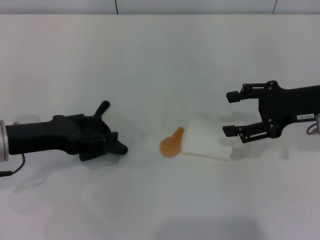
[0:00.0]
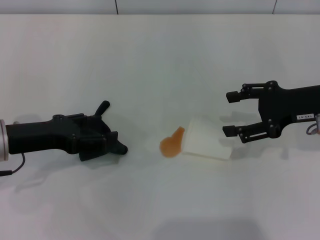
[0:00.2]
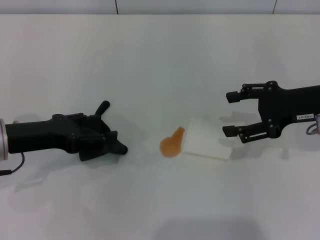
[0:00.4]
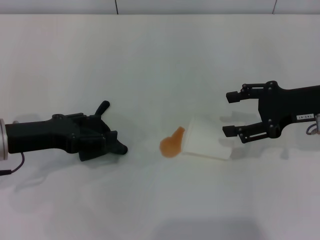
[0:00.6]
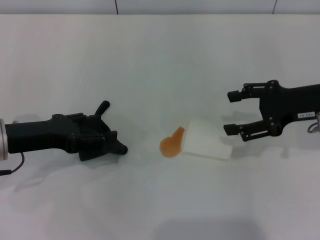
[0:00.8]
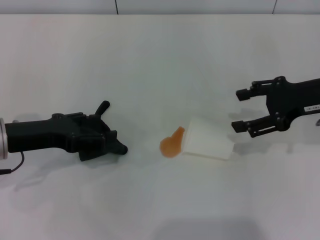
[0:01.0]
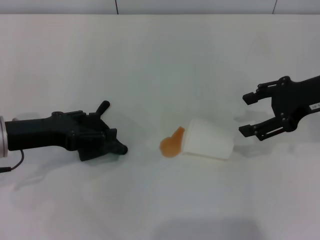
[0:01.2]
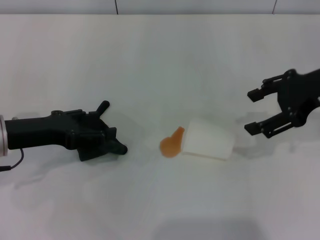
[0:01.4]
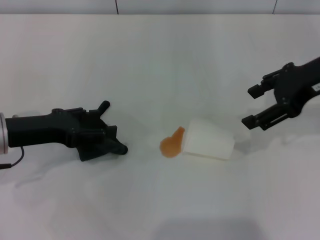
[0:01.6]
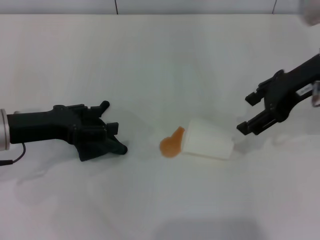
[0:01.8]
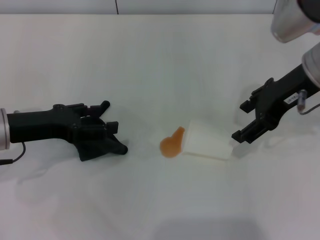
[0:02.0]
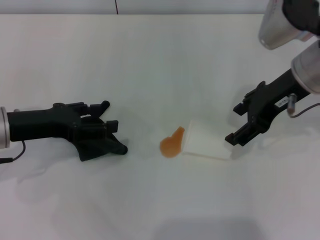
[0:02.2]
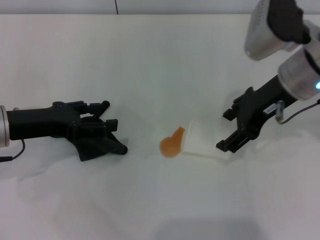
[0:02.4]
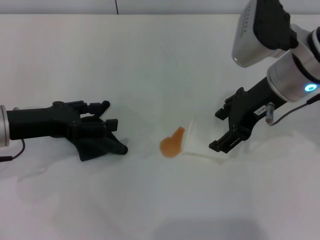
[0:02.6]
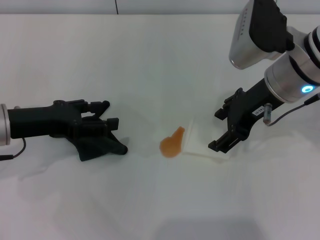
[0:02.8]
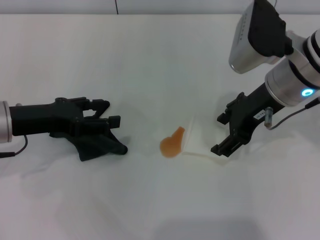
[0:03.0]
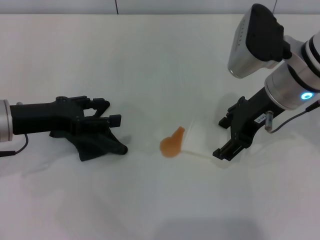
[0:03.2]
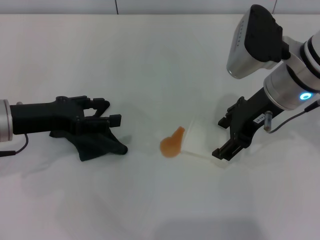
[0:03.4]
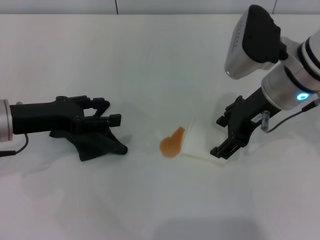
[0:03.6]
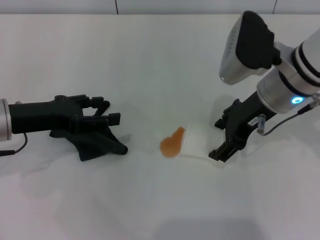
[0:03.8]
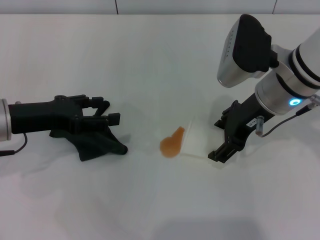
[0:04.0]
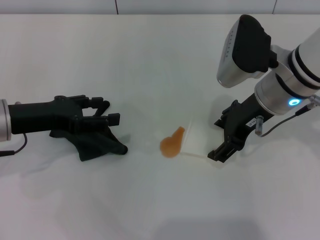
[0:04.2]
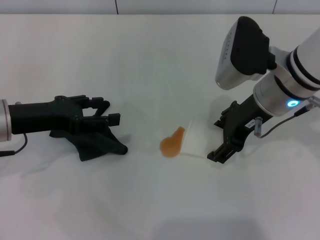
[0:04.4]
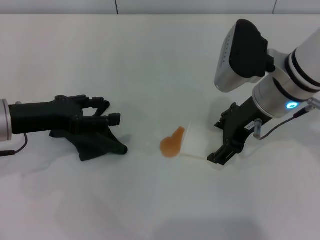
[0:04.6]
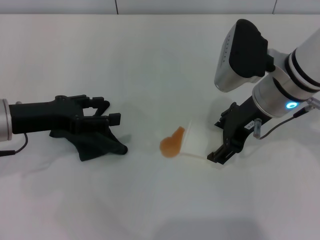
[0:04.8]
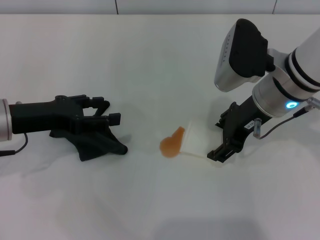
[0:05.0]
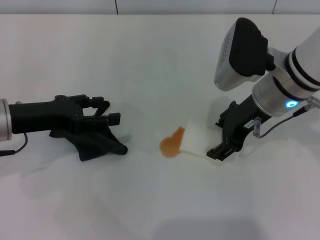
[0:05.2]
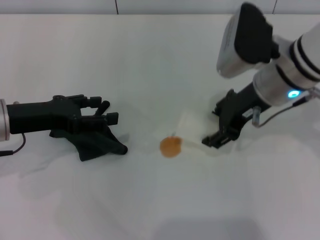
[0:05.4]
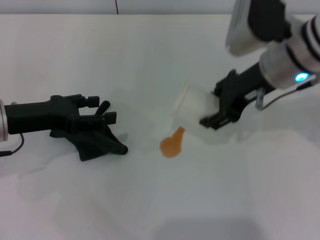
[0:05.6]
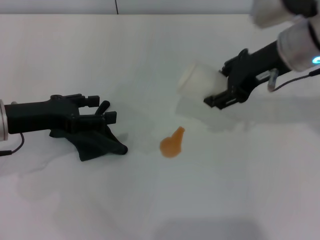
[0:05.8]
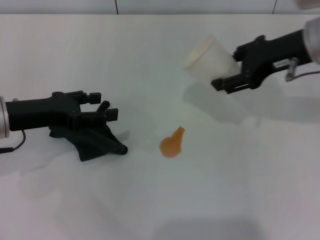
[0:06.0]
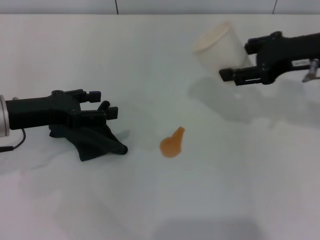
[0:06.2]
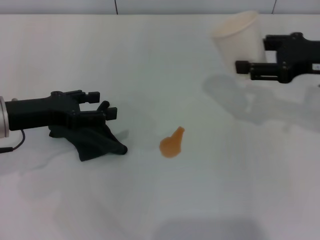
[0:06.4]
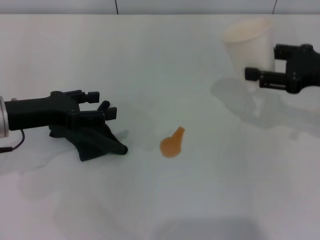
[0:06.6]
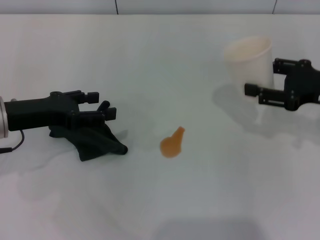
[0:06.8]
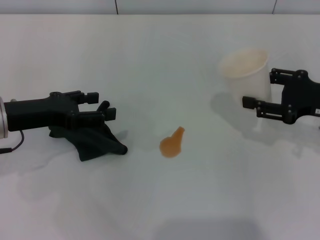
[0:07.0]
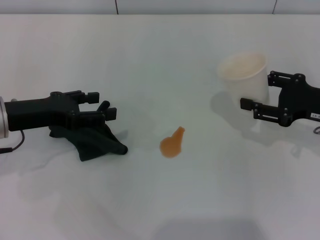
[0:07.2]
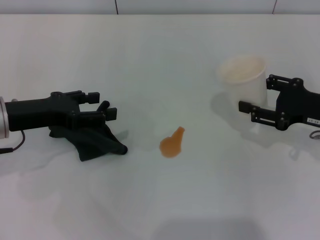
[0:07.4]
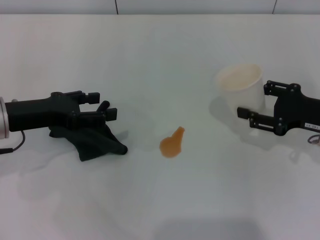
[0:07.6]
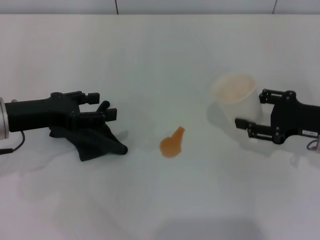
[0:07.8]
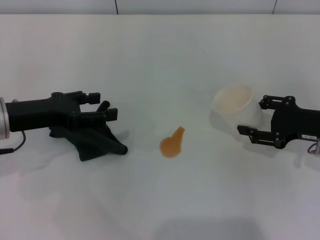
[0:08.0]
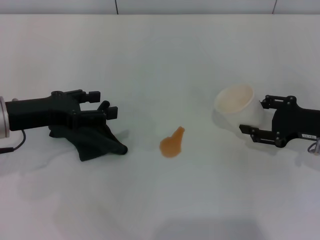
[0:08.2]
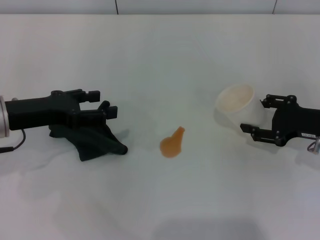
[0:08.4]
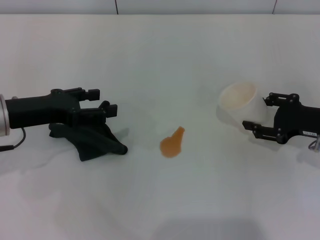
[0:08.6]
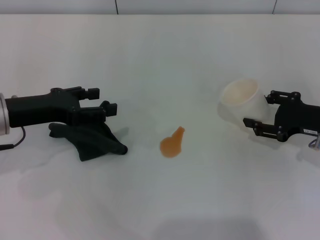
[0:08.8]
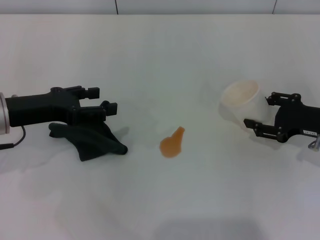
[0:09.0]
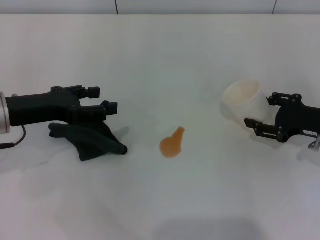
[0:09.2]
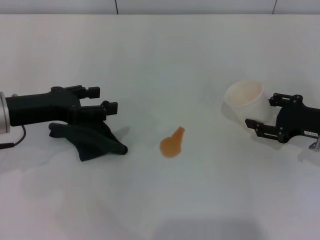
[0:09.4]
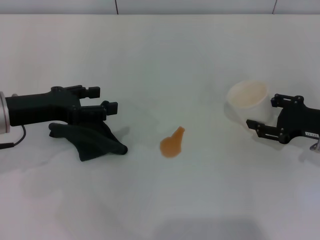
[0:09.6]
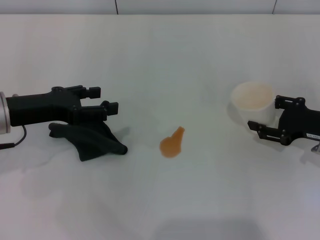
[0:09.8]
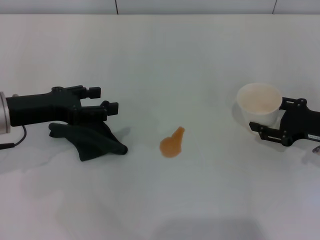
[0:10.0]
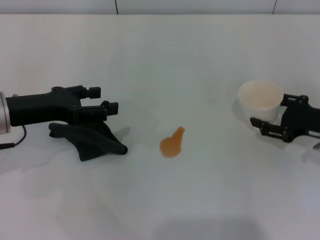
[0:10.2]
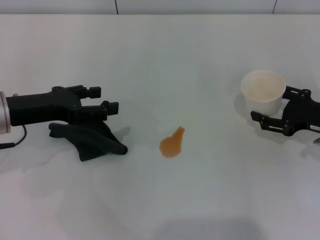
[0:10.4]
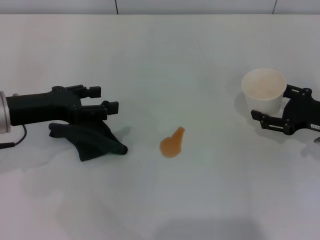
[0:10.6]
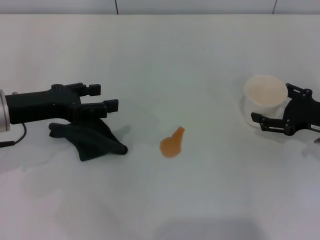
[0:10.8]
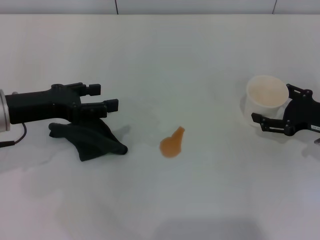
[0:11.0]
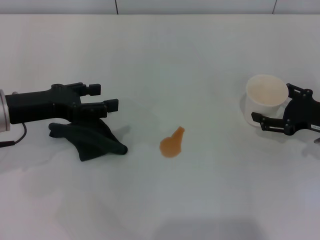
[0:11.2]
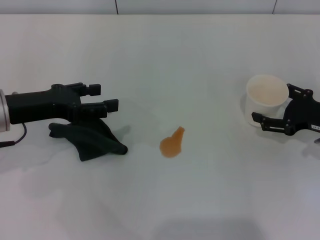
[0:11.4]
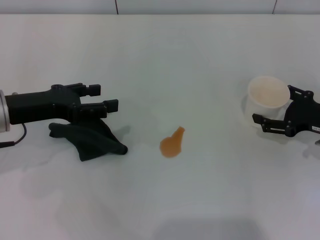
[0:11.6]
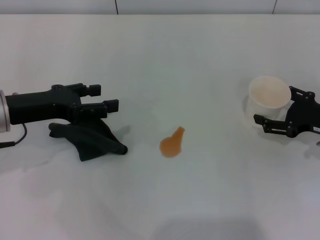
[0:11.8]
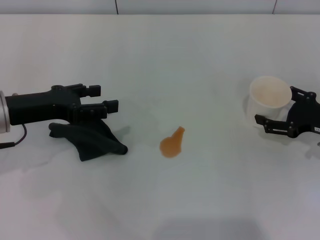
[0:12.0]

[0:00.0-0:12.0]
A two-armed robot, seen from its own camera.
Step, 0:00.0 to 0:04.8: Grasp the paper cup with the right gripper.
0:00.0 to 0:01.6: The right gripper shifts roughly 10 cm upward.
0:01.6 to 0:03.0: The right gripper moves to the left, about 10 cm.
0:03.0 to 0:04.4: The grippers make only small movements.
0:04.4 to 0:06.0: The right gripper goes roughly 10 cm to the right and upward, and closes up.
0:06.0 to 0:07.6: The right gripper travels downward, to the right and backward by some 15 cm.
0:07.6 to 0:10.4: The grippers move only a little.
0:10.4 to 0:12.0: The right gripper opens its fingers.

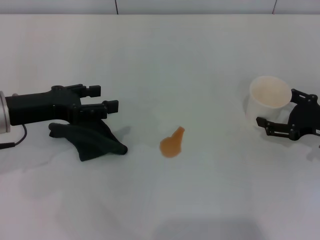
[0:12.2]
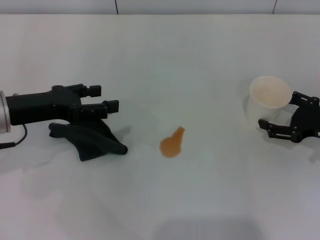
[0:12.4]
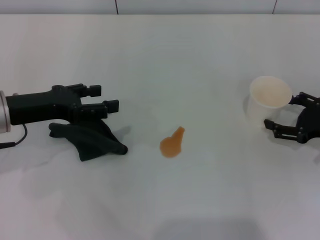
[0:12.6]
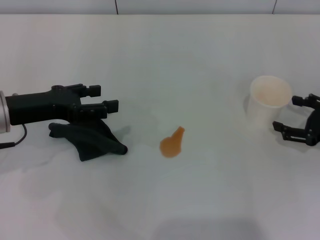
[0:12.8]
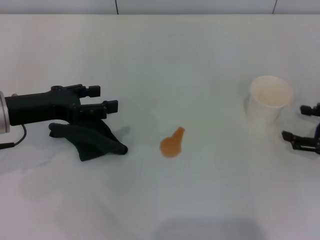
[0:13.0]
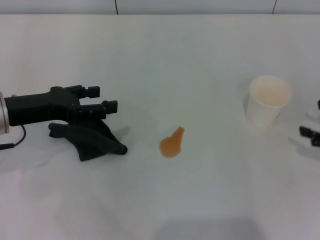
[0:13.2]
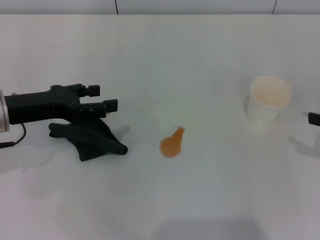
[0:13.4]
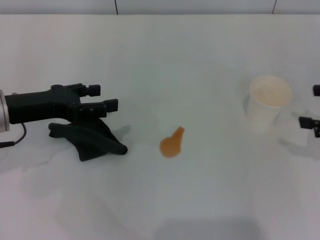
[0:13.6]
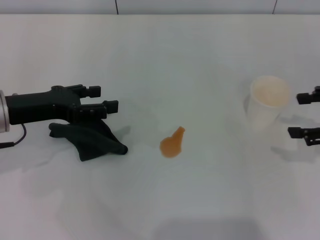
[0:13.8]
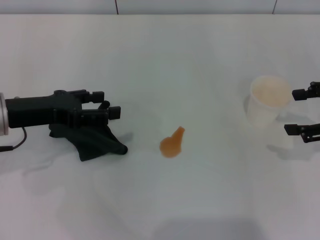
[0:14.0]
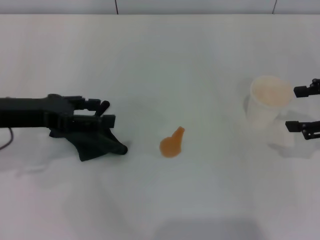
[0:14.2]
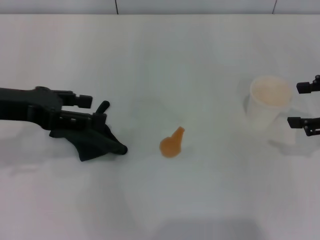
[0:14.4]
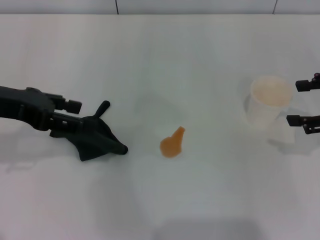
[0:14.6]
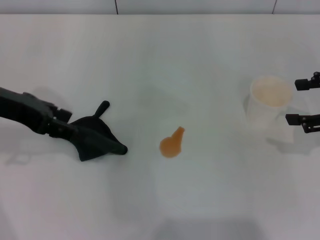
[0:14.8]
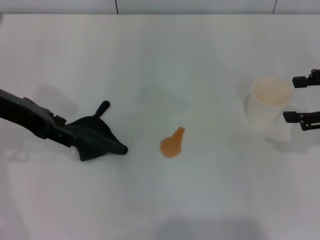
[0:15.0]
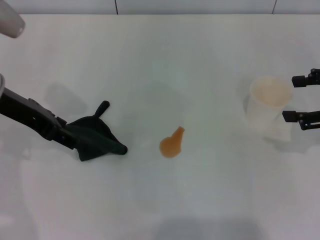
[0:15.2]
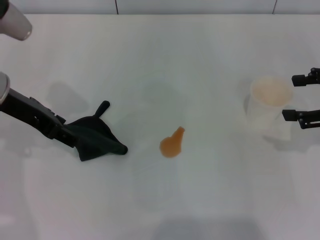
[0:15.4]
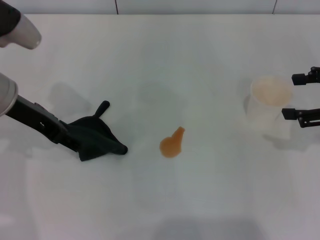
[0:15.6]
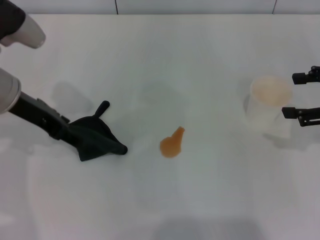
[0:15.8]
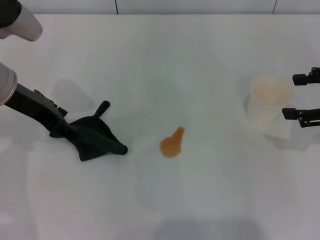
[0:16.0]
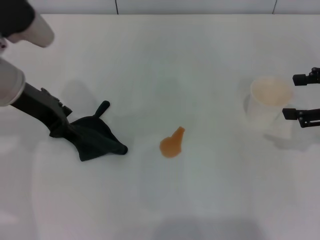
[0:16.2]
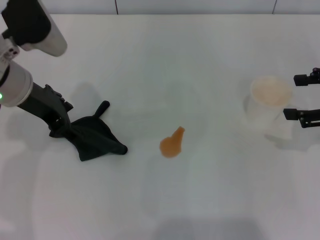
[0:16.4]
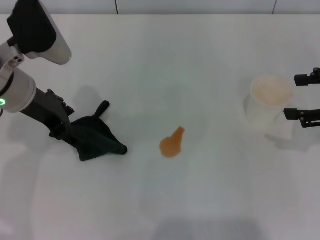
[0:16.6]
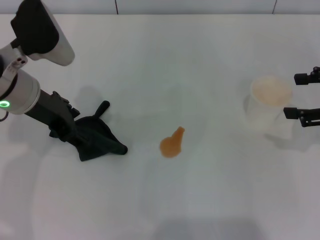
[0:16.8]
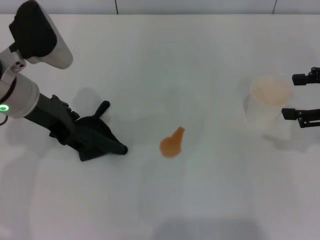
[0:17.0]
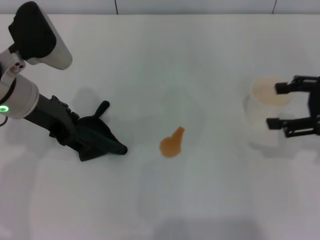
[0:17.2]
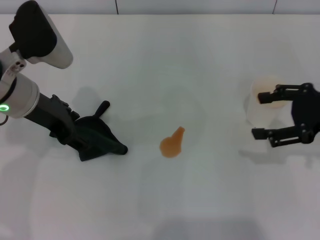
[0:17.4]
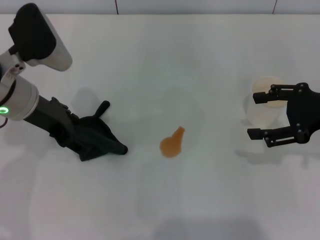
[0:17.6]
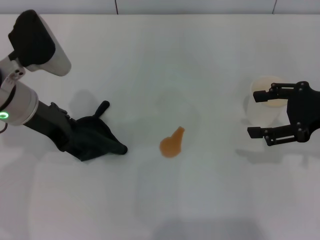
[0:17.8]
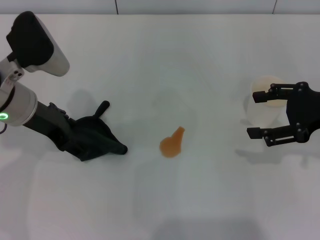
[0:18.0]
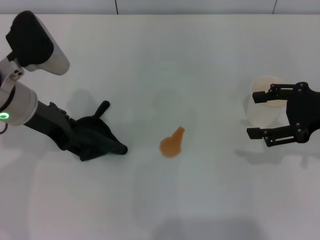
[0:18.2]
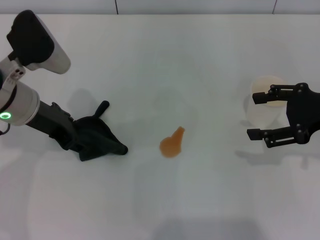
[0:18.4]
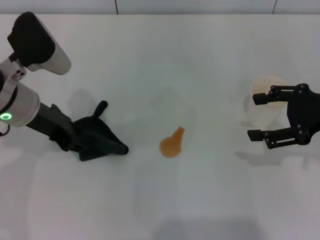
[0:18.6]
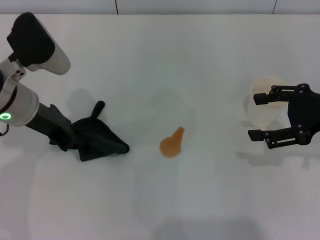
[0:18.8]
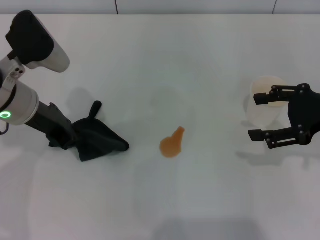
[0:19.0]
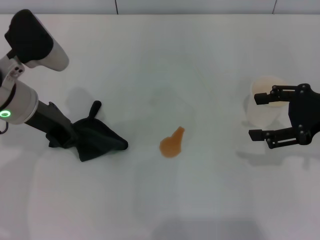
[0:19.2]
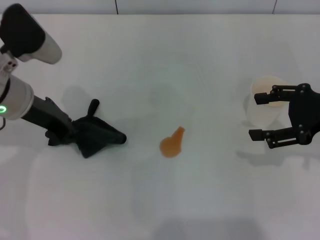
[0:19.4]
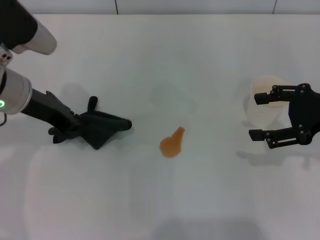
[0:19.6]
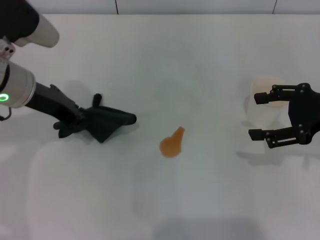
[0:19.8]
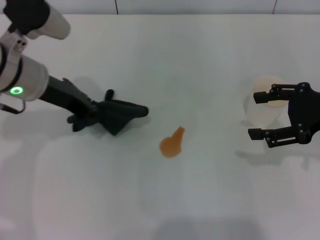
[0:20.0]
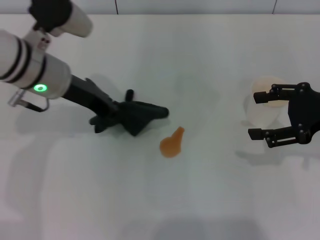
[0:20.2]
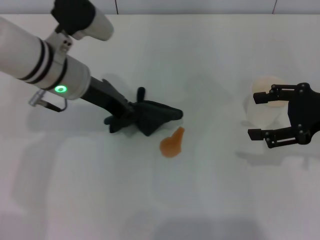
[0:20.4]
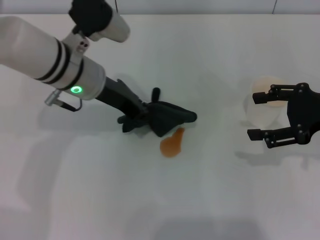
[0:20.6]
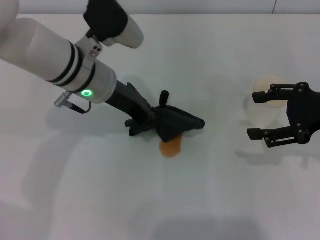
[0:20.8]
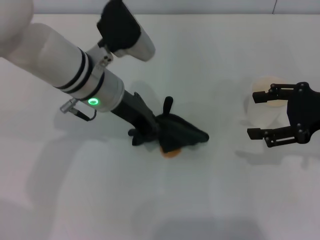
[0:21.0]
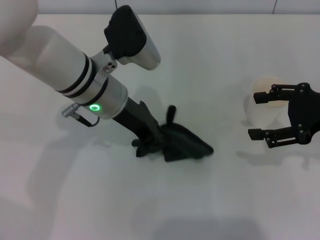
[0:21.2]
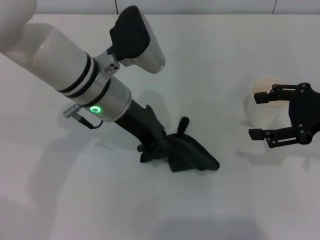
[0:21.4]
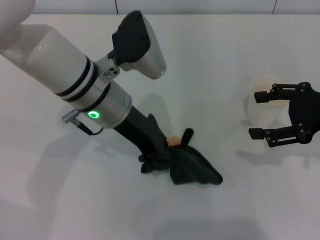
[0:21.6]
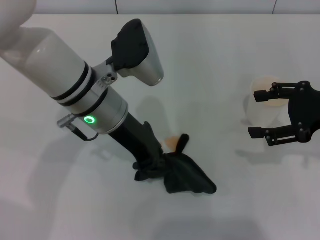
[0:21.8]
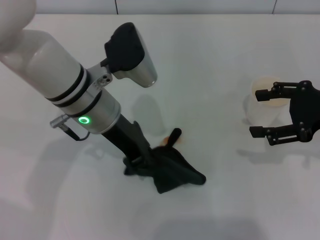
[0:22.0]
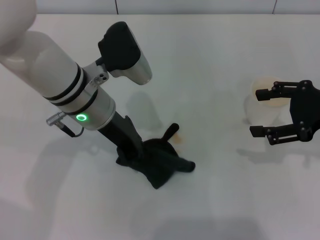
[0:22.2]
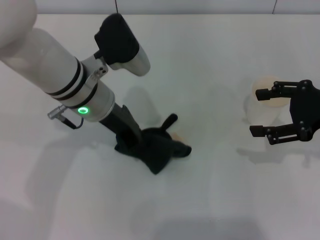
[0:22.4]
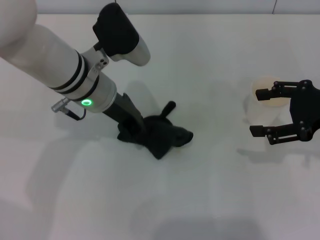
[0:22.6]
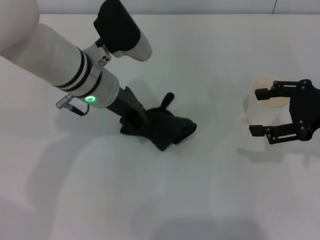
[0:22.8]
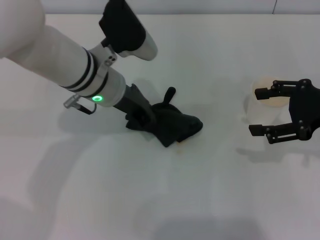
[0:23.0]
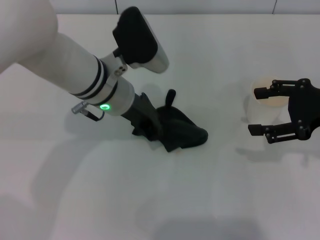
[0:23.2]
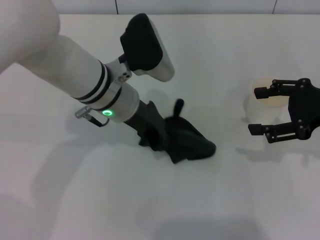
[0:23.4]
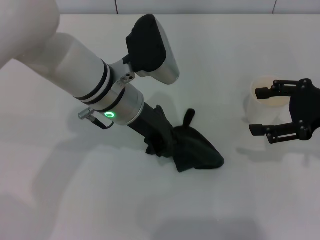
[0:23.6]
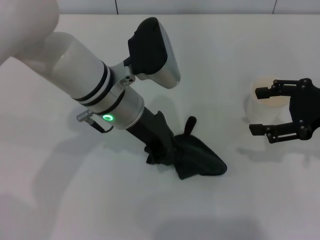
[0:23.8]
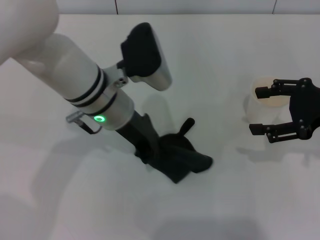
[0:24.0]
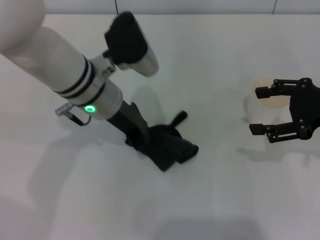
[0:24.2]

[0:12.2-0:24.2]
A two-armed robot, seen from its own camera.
Step, 0:13.0 to 0:18.8: Grasp the rag with the left gripper.
0:12.2 to 0:13.8: The right gripper heads upward, covering roughly 10 cm.
0:13.8 to 0:15.2: The left gripper travels upward by roughly 5 cm.
0:16.6 to 0:18.2: The grippers move only a little.
0:18.2 to 0:19.8: The left gripper closes up.
0:19.8 to 0:21.2: The left gripper shifts some 10 cm to the right.
0:21.2 to 0:24.2: The grippers make only small movements.
